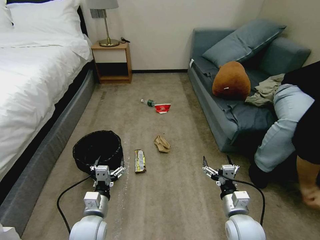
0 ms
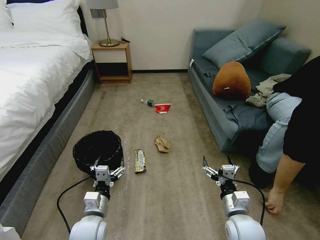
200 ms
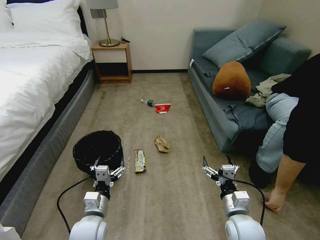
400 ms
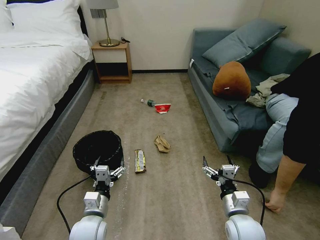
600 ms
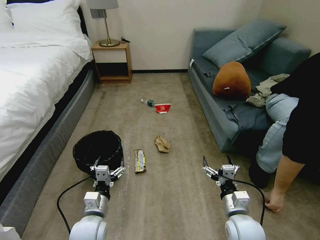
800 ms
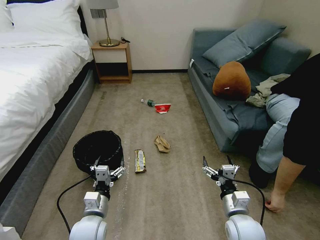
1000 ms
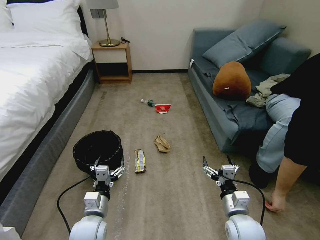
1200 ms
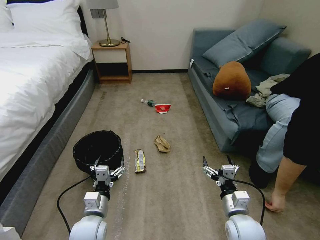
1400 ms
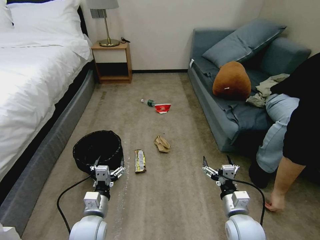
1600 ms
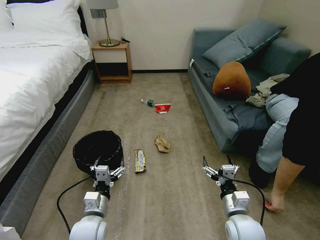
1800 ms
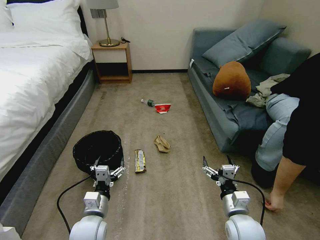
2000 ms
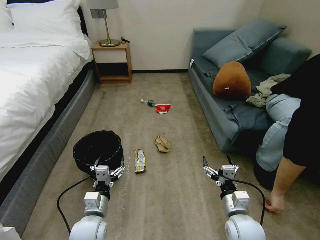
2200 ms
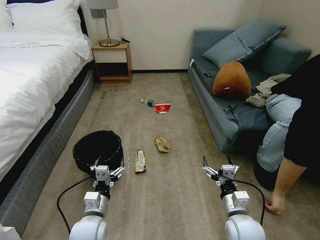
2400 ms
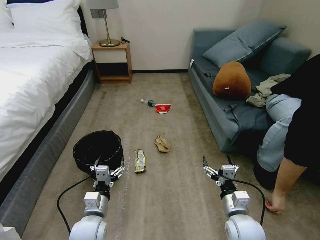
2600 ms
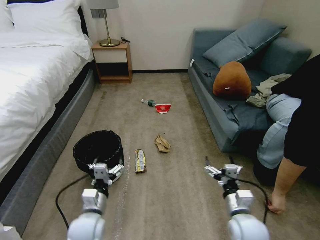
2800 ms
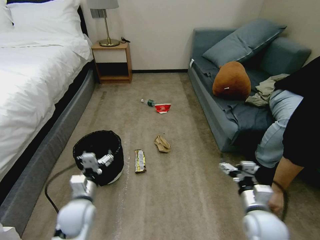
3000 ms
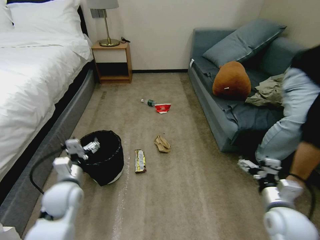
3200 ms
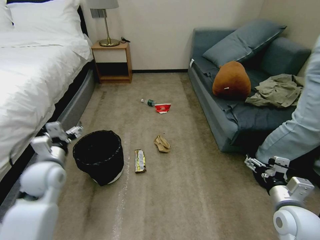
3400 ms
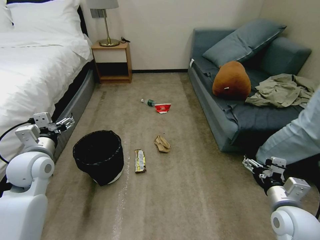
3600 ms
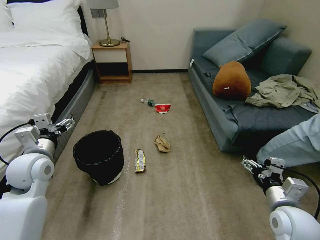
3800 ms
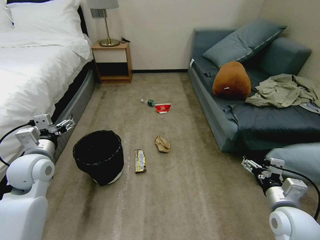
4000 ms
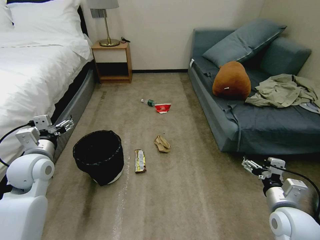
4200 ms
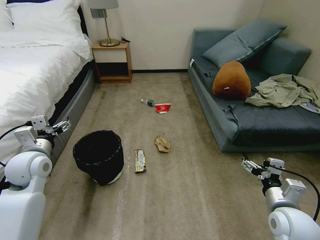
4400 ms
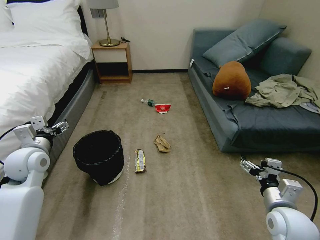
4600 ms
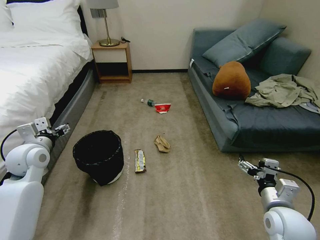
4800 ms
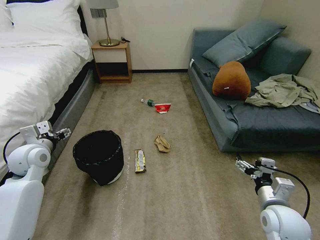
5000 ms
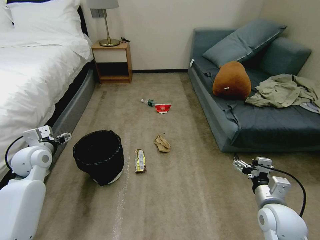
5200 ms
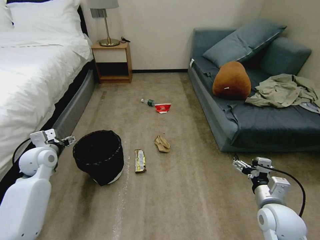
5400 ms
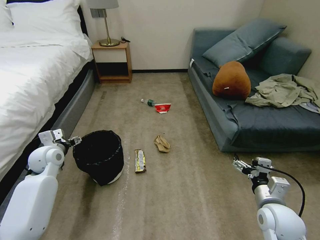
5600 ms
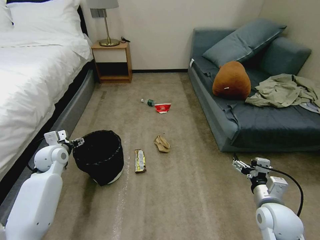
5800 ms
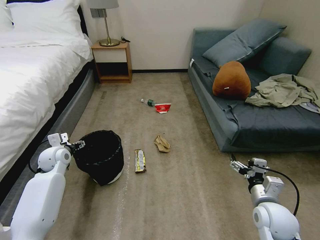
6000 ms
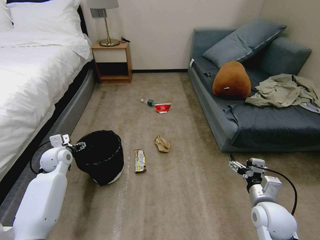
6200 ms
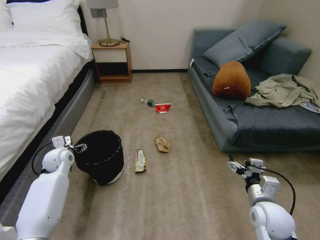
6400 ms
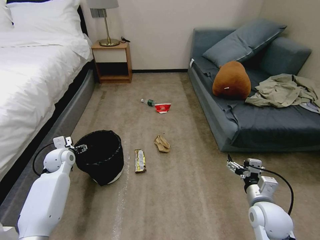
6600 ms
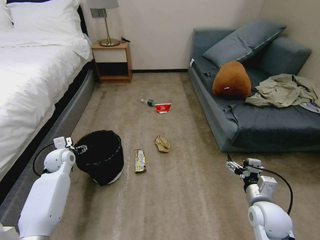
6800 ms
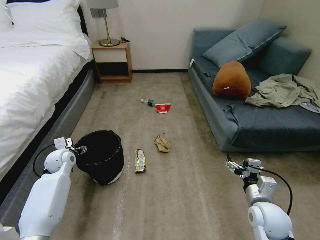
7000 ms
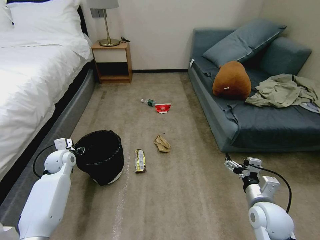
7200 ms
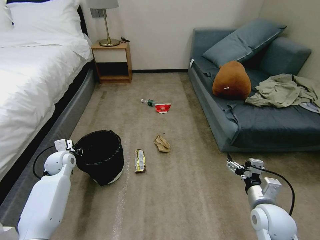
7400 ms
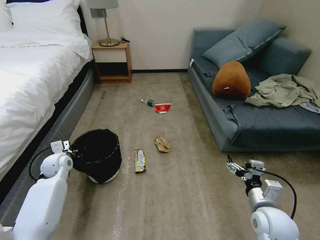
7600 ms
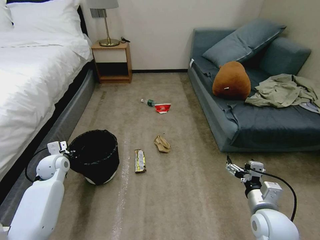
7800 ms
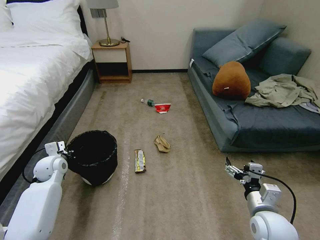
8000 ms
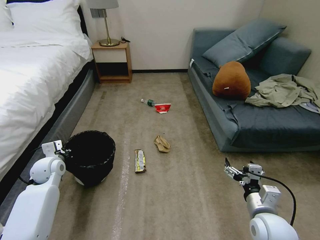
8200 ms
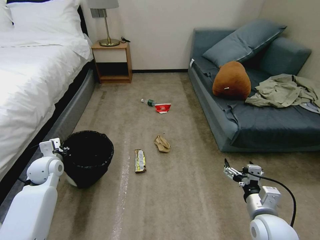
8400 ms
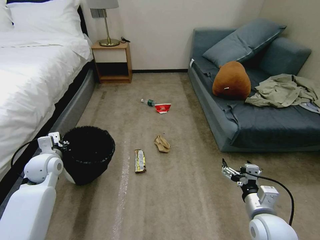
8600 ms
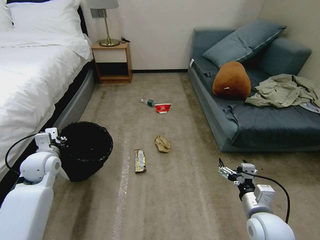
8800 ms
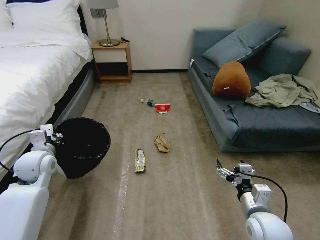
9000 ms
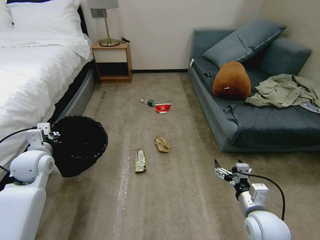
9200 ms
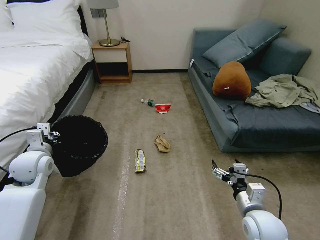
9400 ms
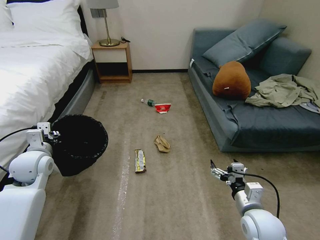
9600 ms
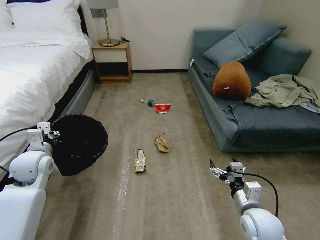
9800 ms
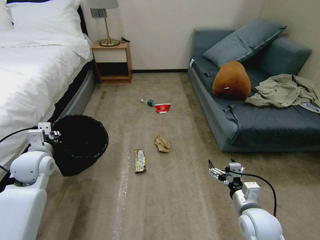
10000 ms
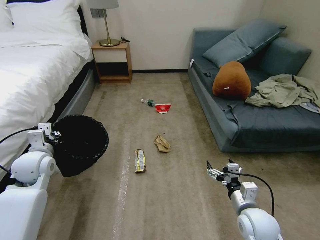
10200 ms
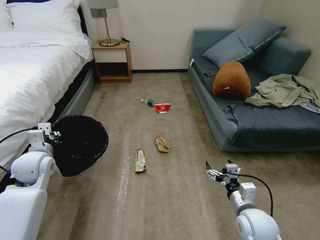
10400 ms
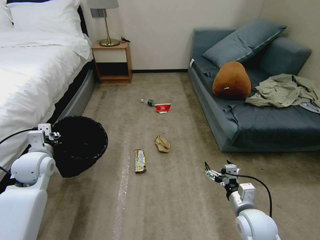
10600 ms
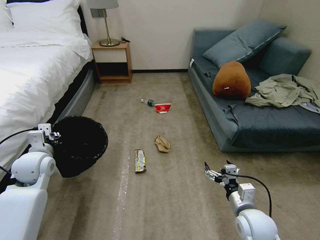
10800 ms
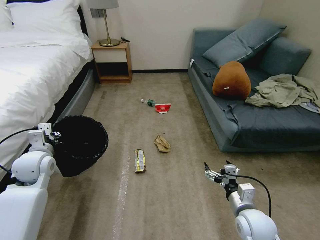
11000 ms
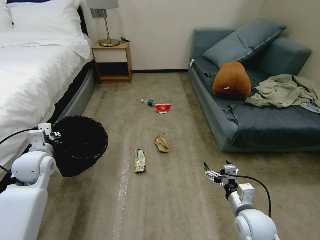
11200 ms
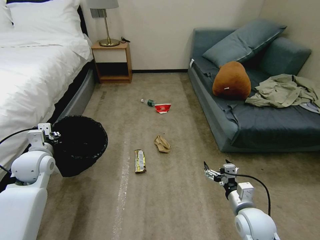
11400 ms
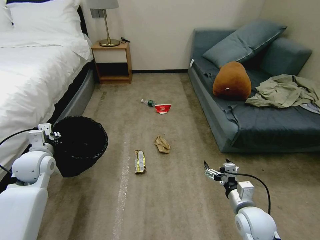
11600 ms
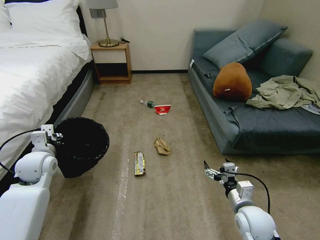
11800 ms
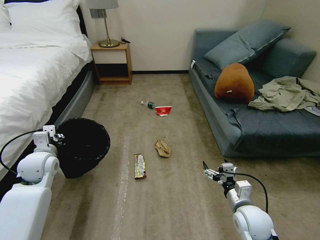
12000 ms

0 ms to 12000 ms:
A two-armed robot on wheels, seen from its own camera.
Task of the whole recording: Pick up the trash bin, then pick up the garbage on the floor and place it into the trash bin.
1600 ms to 3000 ms: The right gripper shifts by about 5 cm. Meanwhile the left gripper moves some 5 cm.
3000 ms to 4400 ms: The left gripper moves upward, to the left and forward, approximately 20 cm, while the right gripper travels to the right by approximately 5 cm.
4400 ms to 6000 ms: The left gripper travels downward and forward by some 15 cm.
6000 ms to 7600 ms: The left gripper closes.
7600 ms to 9000 ms: The left gripper heads upward and backward, covering about 10 cm.
9000 ms to 12000 ms: There are only small adjustments of the grippers.

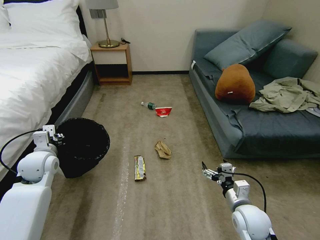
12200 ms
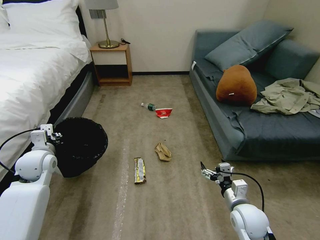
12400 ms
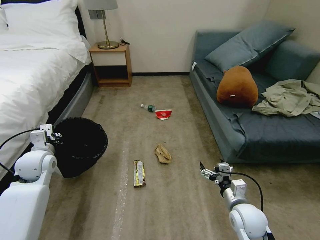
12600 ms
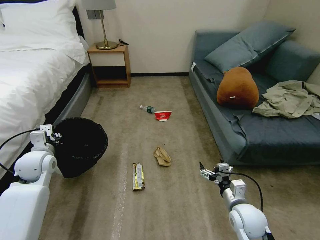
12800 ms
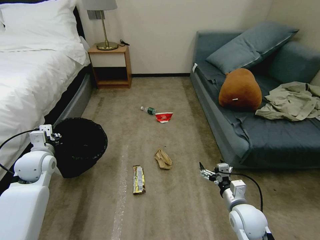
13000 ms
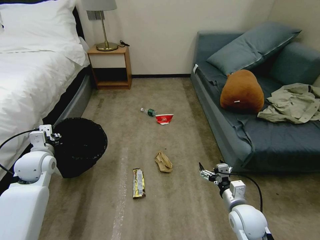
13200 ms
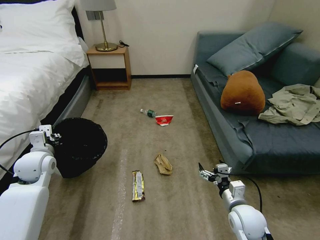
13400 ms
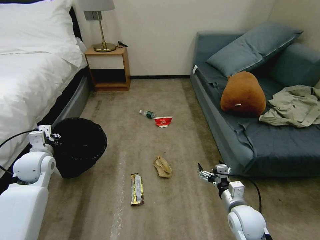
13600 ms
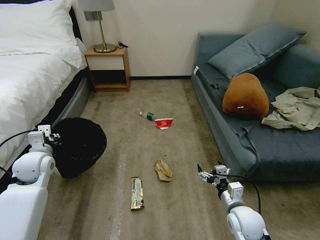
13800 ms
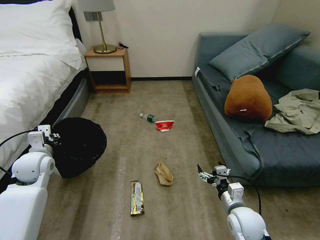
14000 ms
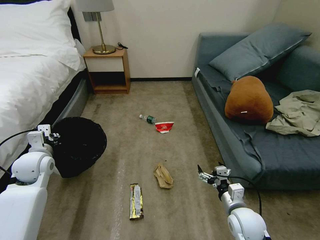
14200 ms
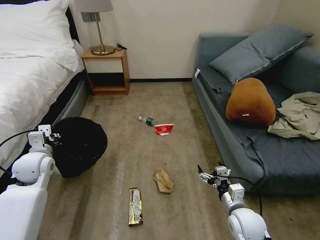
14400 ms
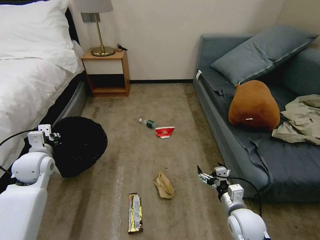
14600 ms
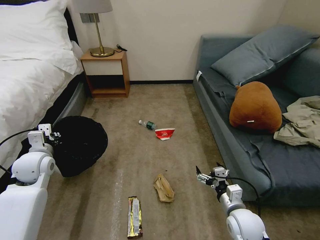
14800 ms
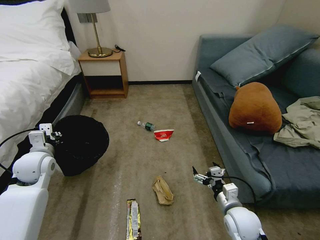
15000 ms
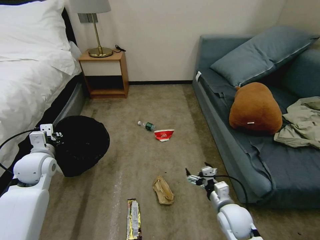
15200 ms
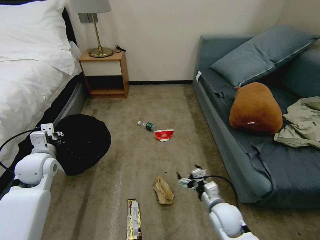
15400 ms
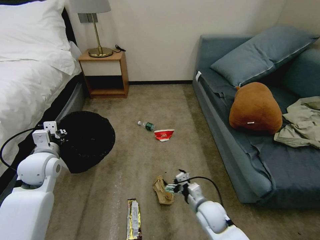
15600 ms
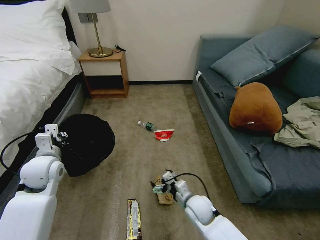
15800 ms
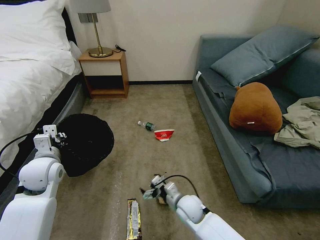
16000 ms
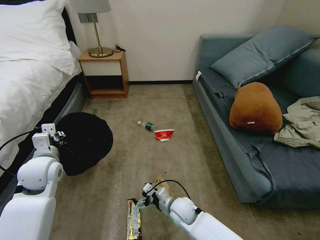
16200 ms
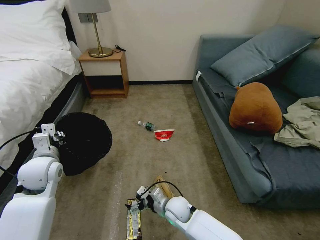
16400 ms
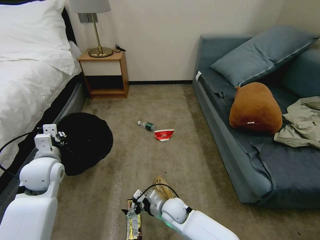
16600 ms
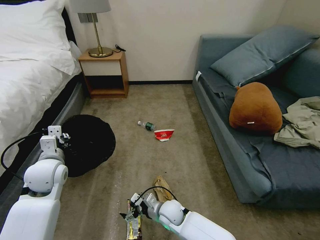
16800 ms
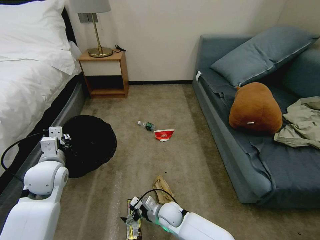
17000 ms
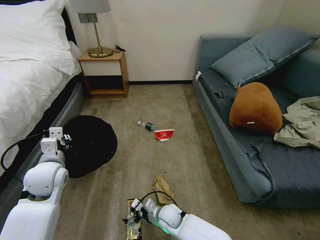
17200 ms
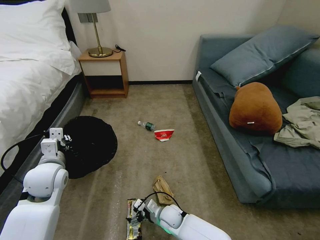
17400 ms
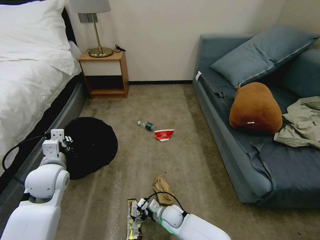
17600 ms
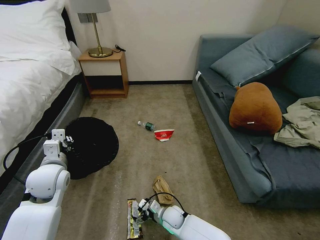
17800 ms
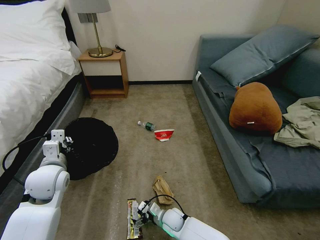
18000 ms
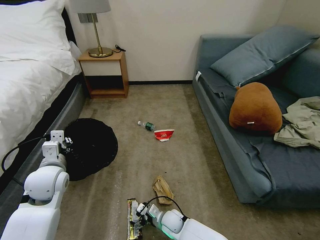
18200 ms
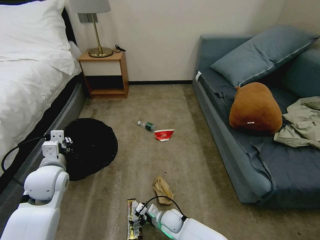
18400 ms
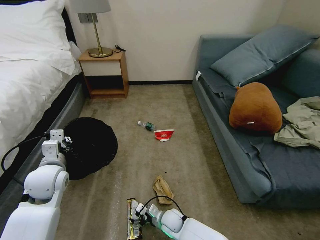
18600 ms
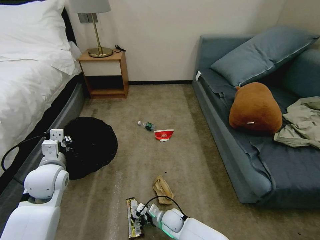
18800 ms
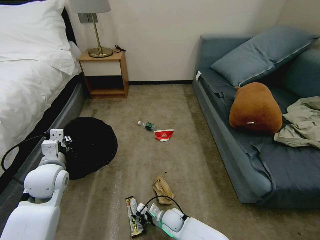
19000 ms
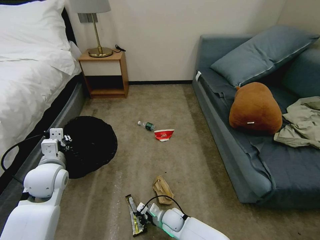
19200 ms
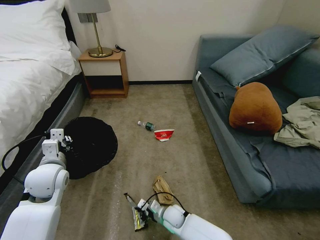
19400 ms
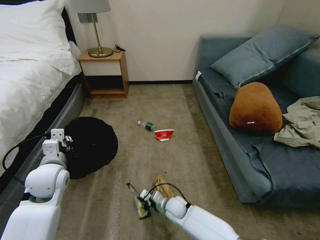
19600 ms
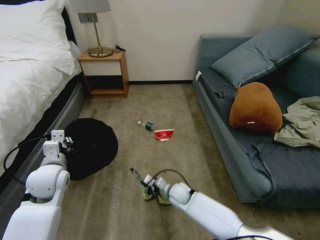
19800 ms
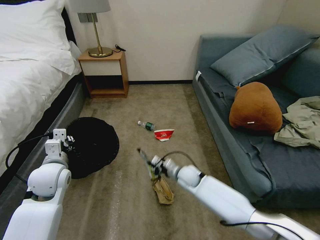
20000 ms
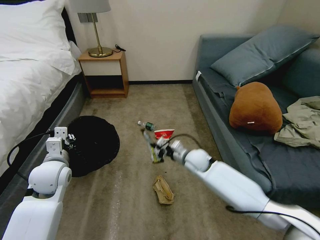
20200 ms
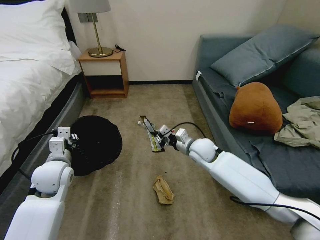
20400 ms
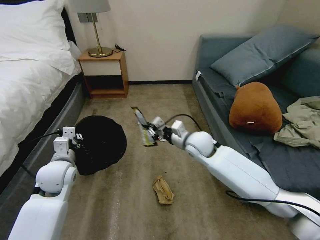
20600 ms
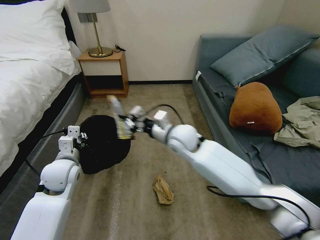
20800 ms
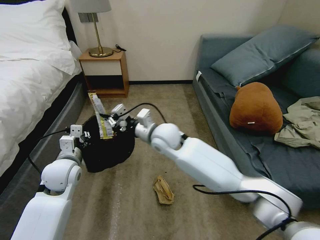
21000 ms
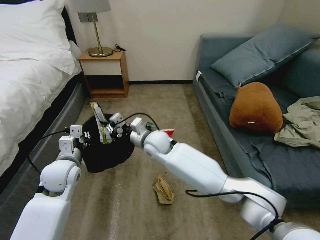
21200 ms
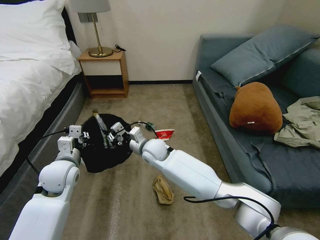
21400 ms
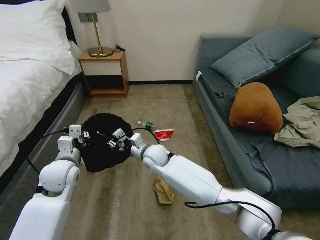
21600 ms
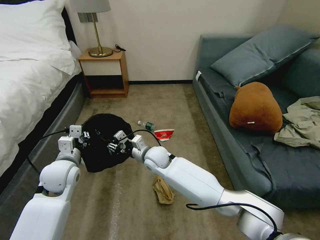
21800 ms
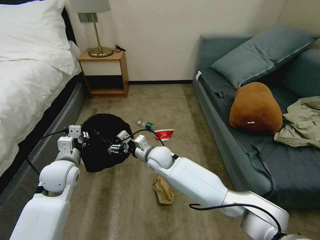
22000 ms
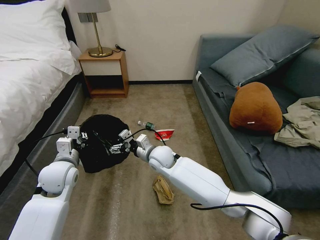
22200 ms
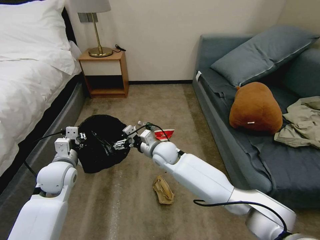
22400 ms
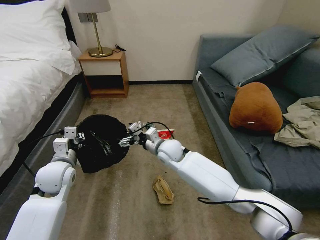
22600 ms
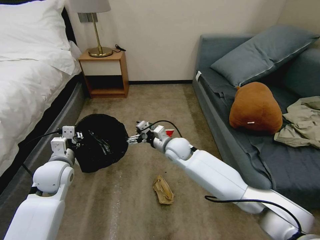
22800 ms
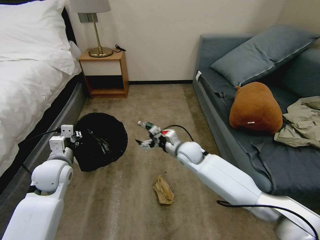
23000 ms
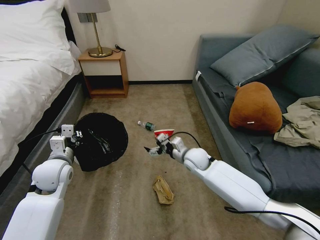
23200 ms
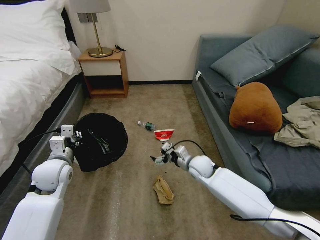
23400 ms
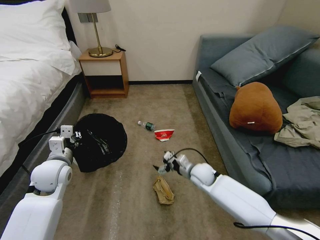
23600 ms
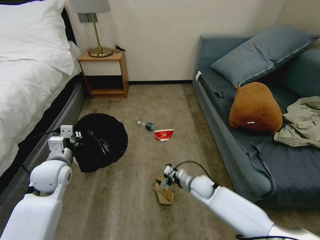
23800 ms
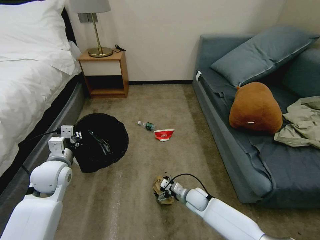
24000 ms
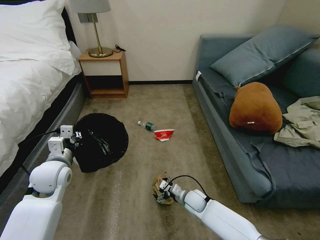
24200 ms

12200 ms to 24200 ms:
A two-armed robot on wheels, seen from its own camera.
Task of the whole recording: Pick up the trash bin, then pick up the garbage on the floor and place it into the trash bin.
15200 ms to 16600 ms: The right gripper goes approximately 20 cm to the left and downward.
16600 ms to 18200 ms: The right gripper goes approximately 10 cm downward.
18200 ms to 19800 ms: The right gripper shifts approximately 10 cm forward and upward, and closes its fingers.
19800 ms to 21200 ms: The right gripper moves upward and to the left, some 25 cm.
21200 ms to 22600 ms: The right gripper shifts approximately 5 cm to the right, and opens its fingers.
22600 ms to 24200 ms: The right gripper heads downward, to the right and backward, covering approximately 25 cm.
